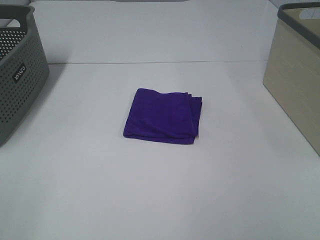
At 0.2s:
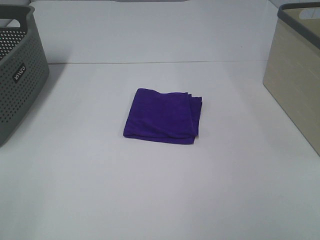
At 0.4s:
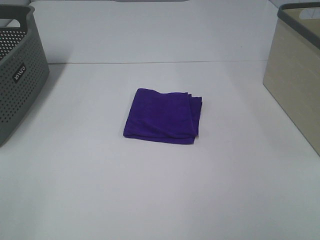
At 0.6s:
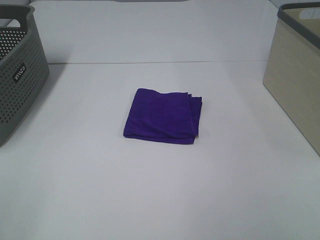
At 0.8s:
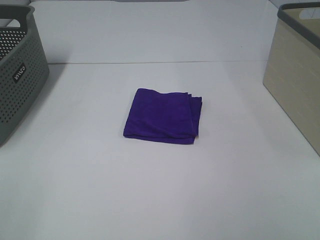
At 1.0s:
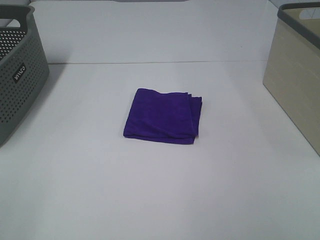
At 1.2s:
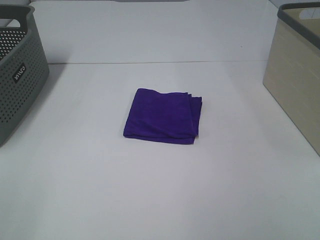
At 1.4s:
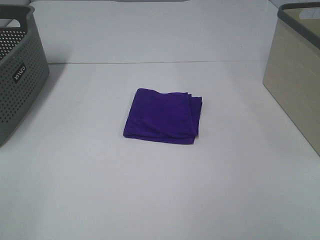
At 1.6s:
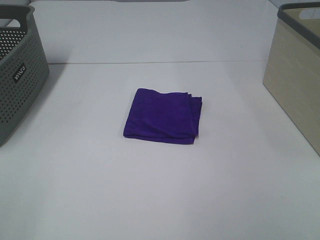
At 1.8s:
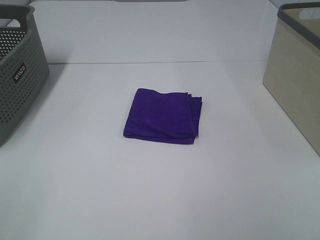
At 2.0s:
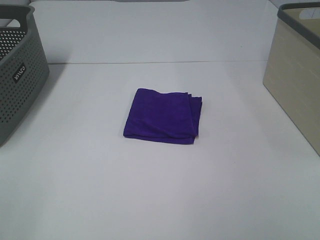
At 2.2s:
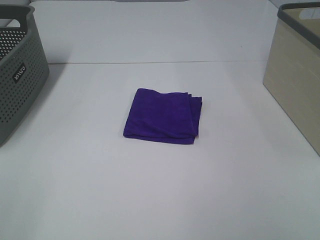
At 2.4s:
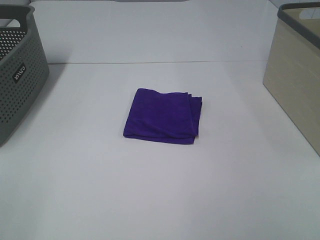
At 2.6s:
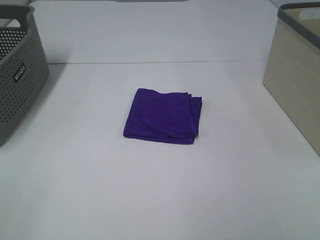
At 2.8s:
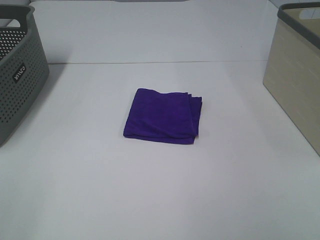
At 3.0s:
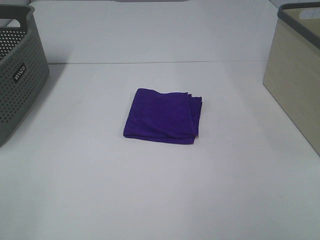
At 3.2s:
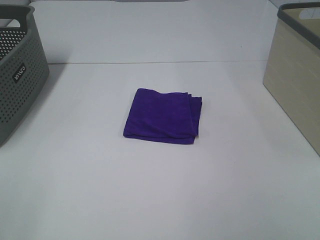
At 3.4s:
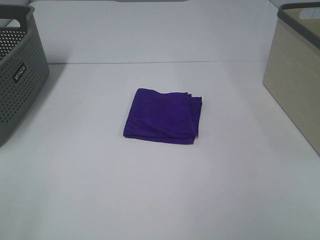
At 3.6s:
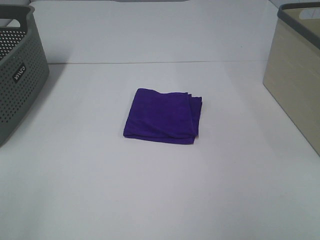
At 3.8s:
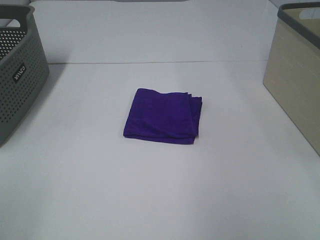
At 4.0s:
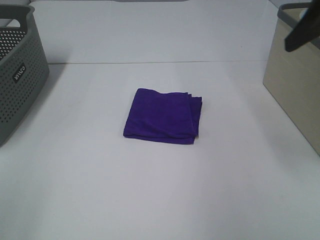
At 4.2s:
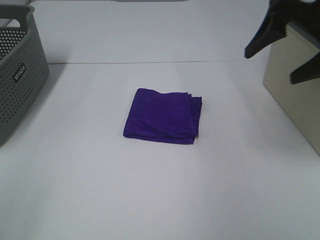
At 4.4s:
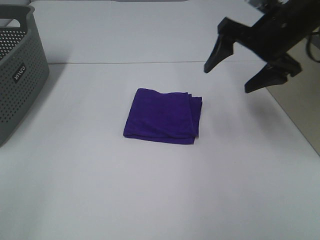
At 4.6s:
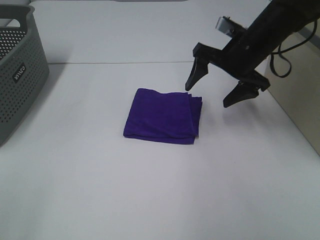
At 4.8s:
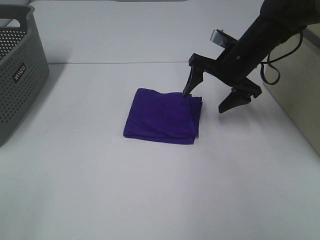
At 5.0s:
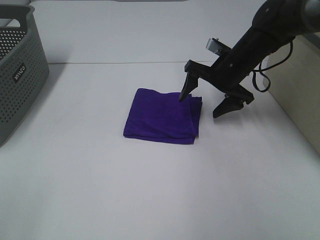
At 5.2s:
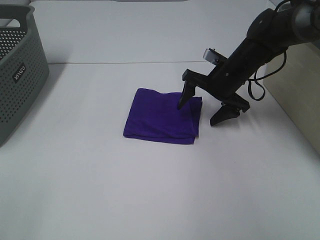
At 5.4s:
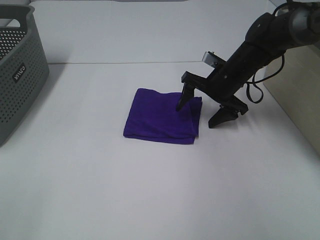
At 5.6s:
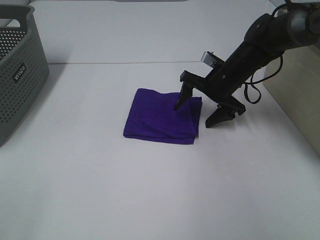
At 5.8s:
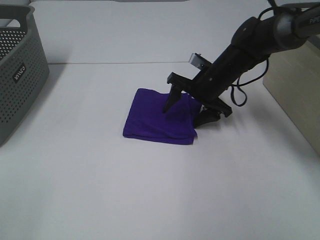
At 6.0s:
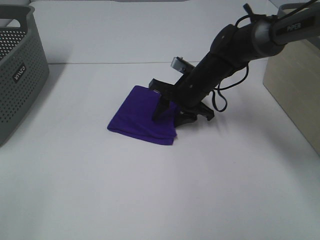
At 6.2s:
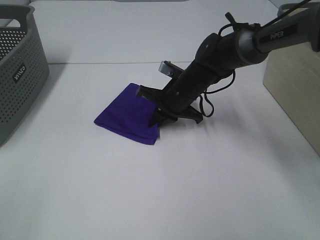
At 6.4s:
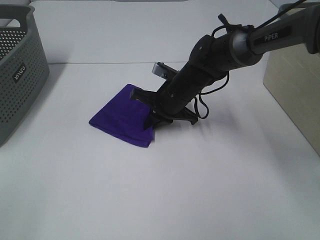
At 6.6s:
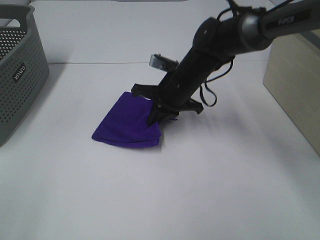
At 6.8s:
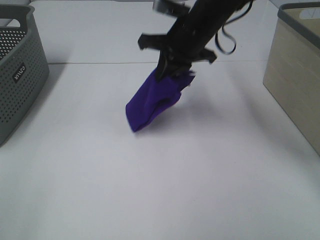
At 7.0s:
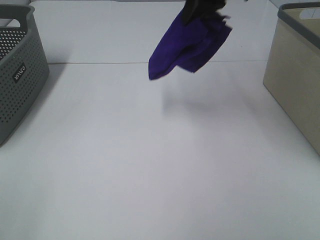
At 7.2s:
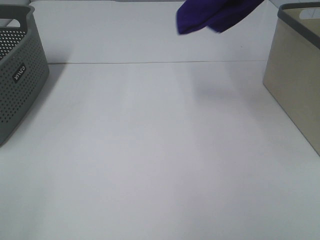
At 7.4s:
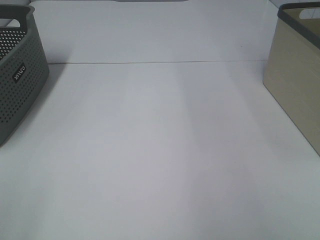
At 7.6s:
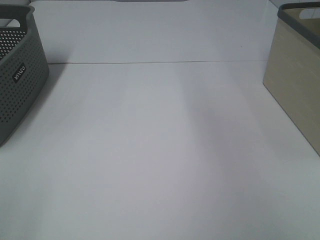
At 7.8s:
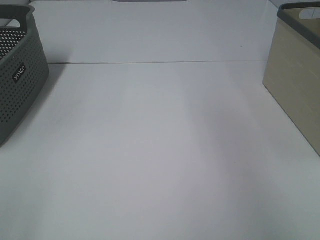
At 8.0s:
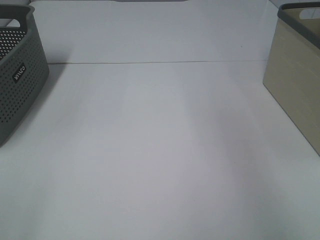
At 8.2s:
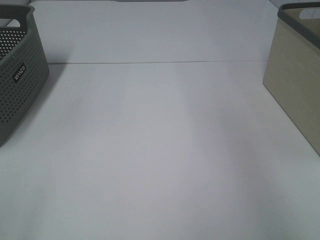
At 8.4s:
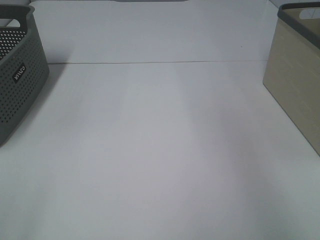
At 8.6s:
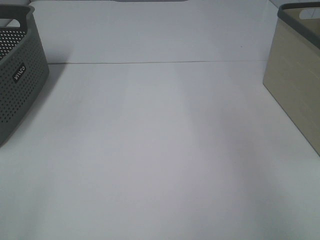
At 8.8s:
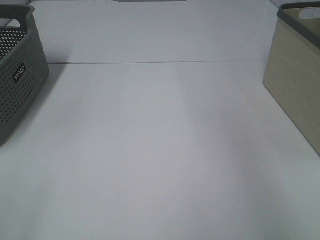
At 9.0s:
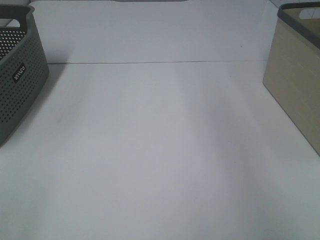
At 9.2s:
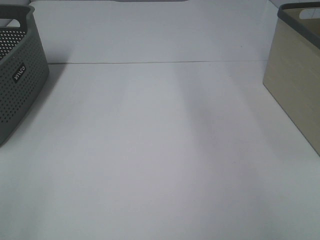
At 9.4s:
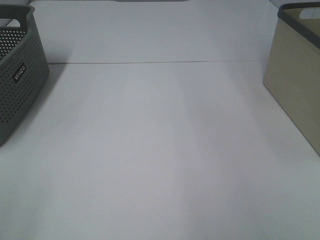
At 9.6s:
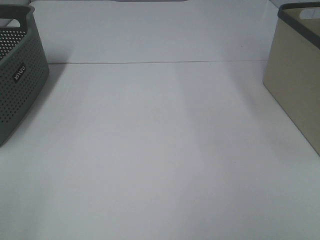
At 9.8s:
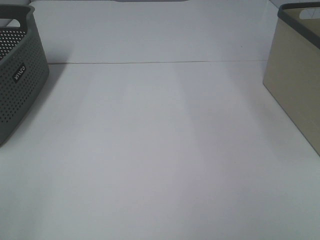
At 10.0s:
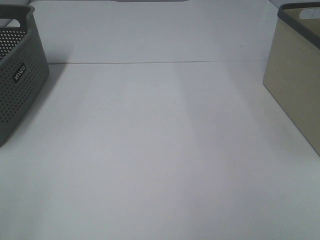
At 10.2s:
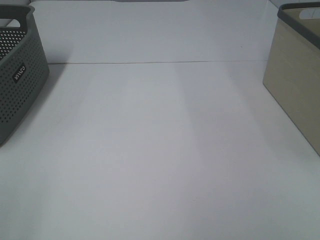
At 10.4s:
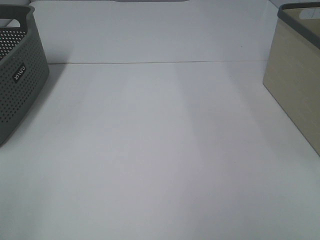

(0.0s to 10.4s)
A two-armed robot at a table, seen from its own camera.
Step, 0.0s - 6.2s: Right hand: grab the folded purple towel.
Step, 6.4s - 8.6s: Right hand: place the purple towel in right basket.
0.0s - 3.0s: Both grippers stay put.
3.0s - 4.4s: The right gripper goes roughly 35 cm forward.
4.4s - 6.0s: The right gripper shifts about 20 cm downward and to the left, and closes its fingers.
6.0s - 7.4s: The right gripper moves upward and to the right, approximately 40 cm, and closes.

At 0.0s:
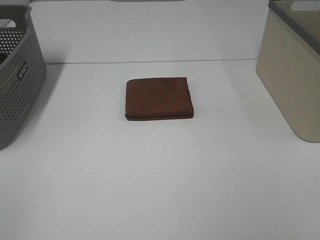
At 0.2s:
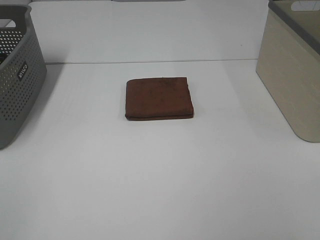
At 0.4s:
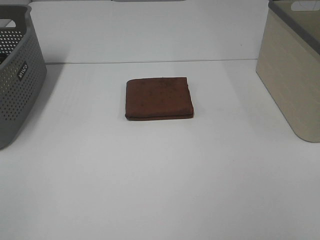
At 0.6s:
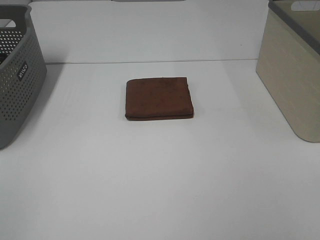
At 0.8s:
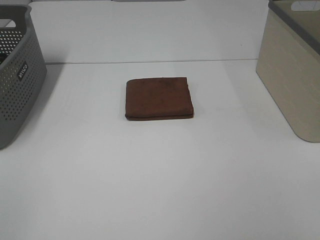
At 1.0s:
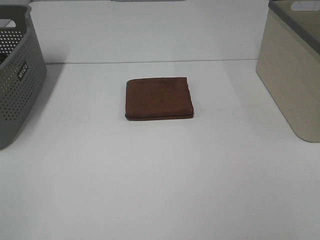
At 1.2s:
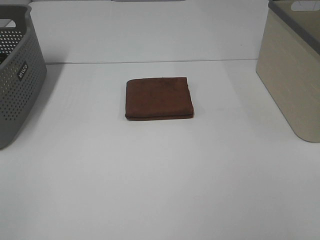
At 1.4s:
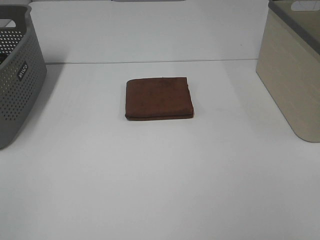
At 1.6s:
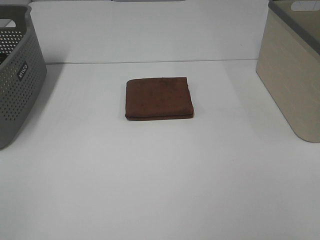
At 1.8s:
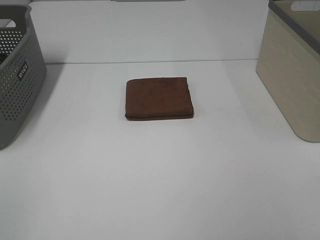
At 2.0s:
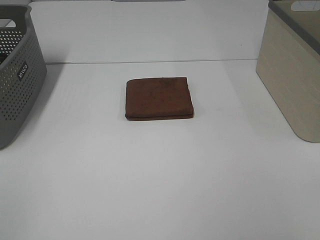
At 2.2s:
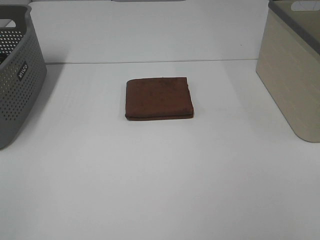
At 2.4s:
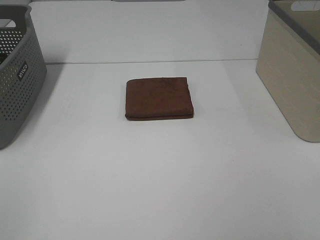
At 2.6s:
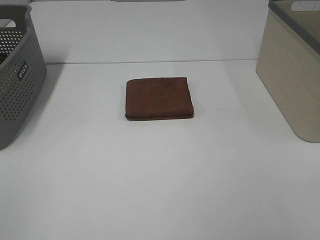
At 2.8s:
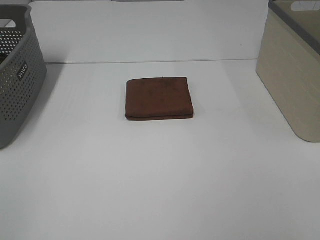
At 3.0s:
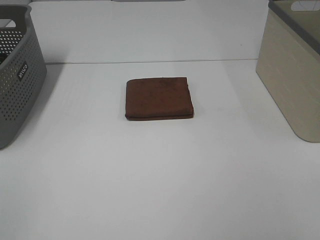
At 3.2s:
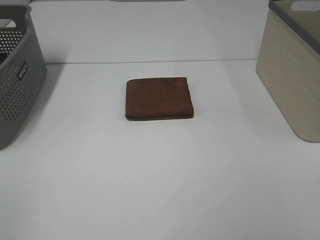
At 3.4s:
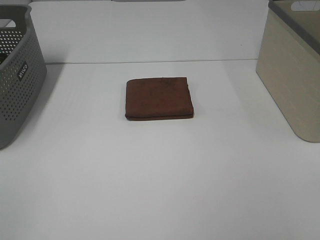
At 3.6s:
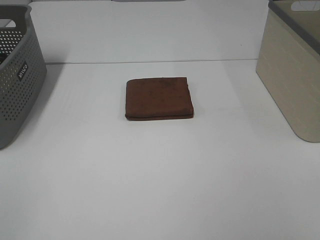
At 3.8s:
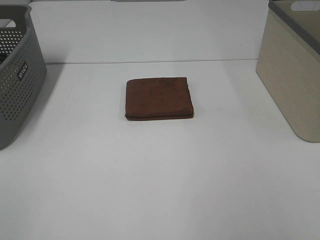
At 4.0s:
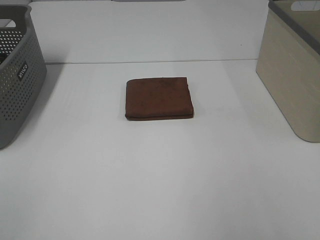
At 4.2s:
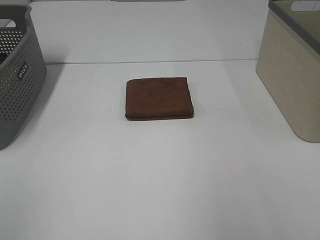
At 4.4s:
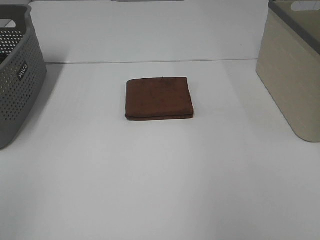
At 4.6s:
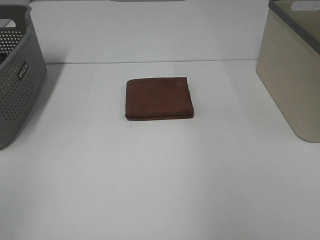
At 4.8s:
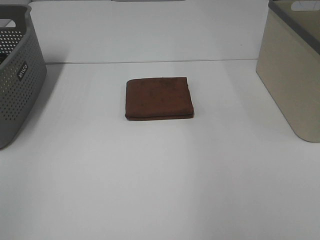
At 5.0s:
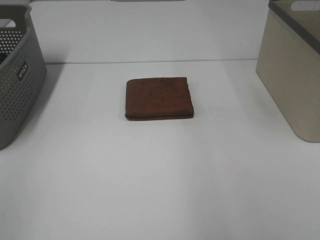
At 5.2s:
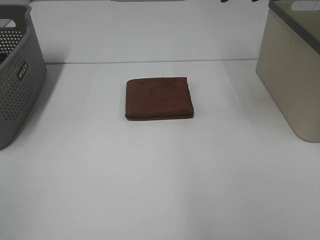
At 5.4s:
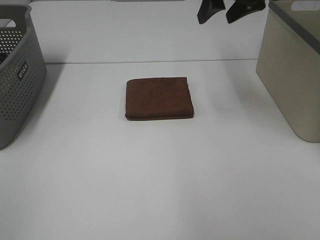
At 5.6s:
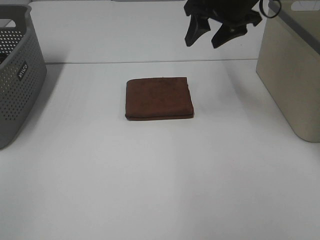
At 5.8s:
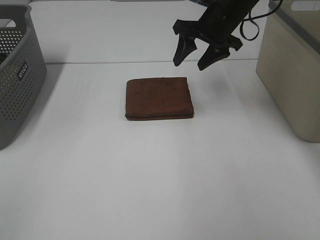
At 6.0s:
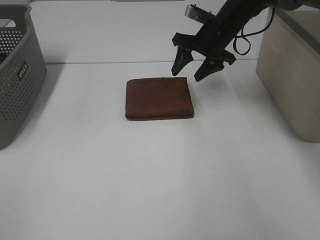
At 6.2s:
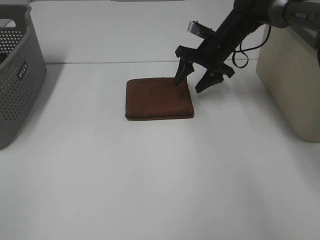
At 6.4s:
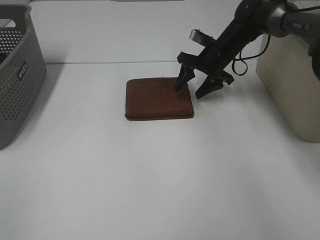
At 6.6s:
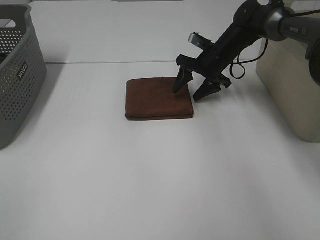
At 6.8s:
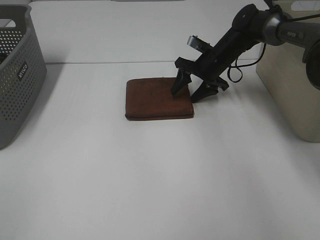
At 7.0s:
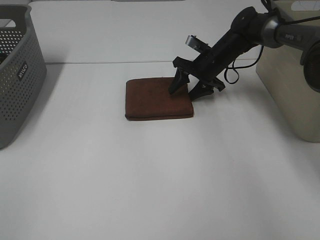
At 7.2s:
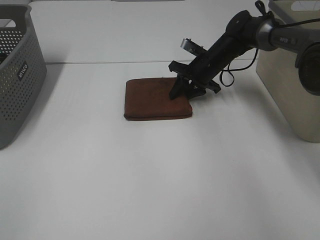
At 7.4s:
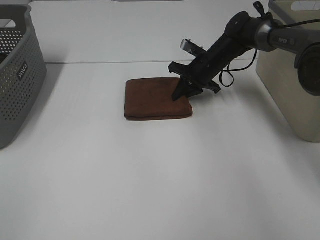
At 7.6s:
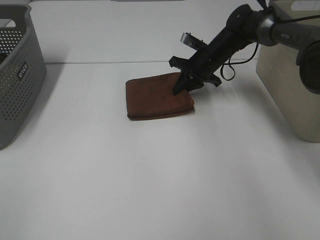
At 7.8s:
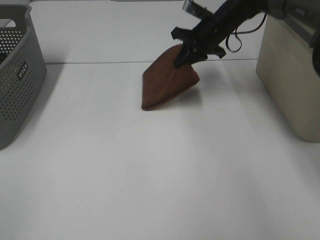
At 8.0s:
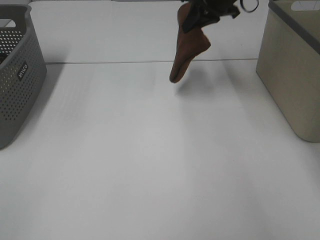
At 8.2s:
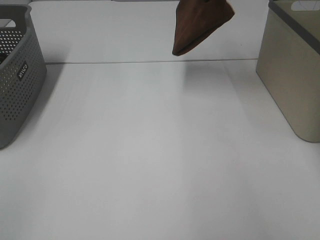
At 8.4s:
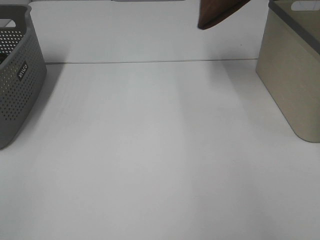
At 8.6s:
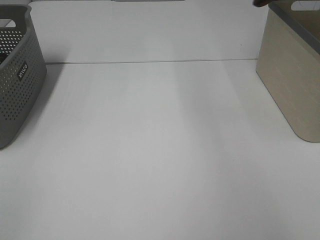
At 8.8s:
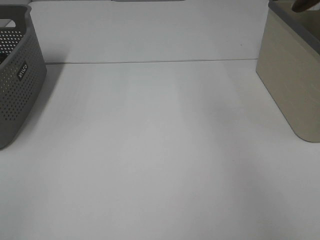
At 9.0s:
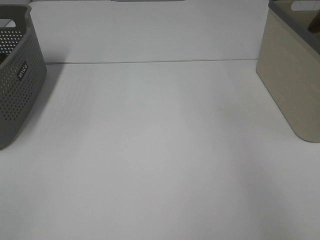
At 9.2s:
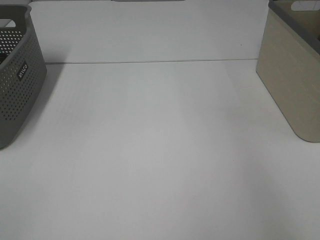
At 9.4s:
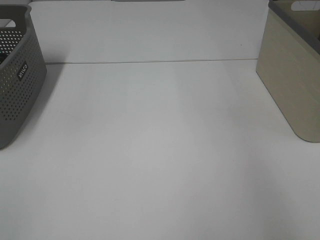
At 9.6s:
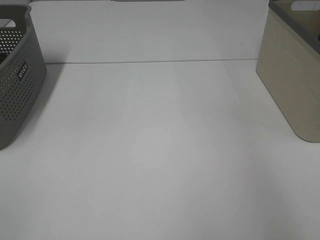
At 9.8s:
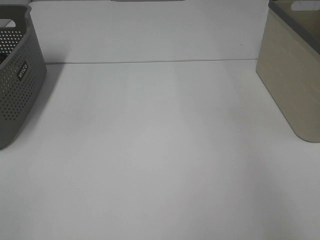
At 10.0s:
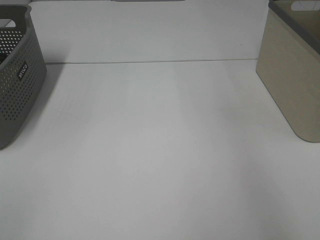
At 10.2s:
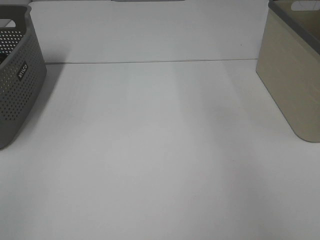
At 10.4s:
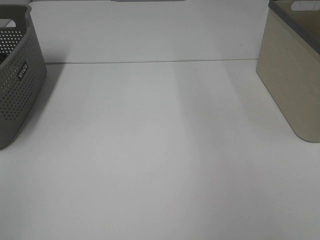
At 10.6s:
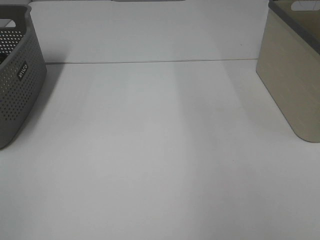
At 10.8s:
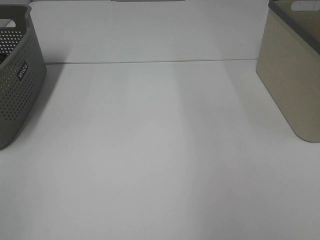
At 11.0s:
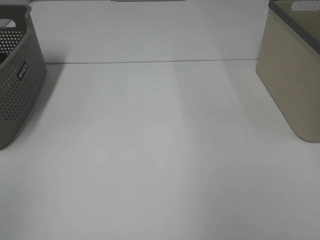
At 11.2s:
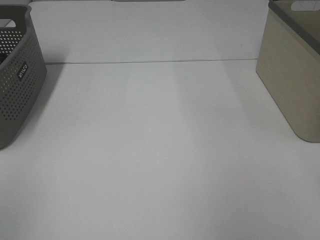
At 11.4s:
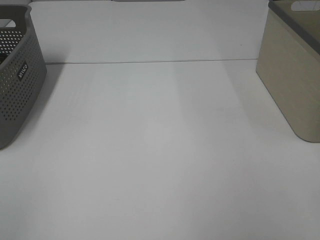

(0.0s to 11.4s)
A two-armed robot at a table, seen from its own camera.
Step, 0.0s - 7.4s: Right hand: grab the folded brown towel.
Step, 7.6s - 9.8s: Right hand: place the brown towel in right basket.
0.0s - 2.8s: Neither gripper changes place.
4.2s - 5.6s: The right gripper heads forward and to the left, covering approximately 35 cm.
5.6s - 7.2s: The right gripper goes about 20 cm downward and forward, and closes up.
7.2s - 8.6s: The right gripper heads upward and to the right, covering approximately 40 cm, and closes its fingers.

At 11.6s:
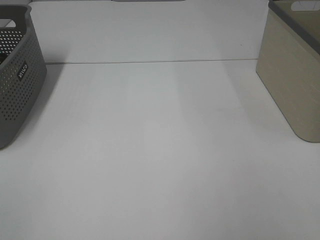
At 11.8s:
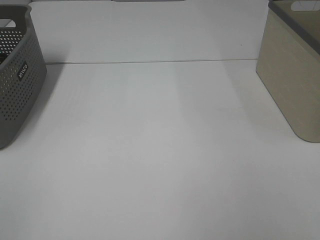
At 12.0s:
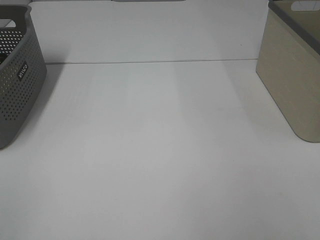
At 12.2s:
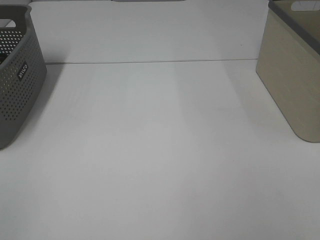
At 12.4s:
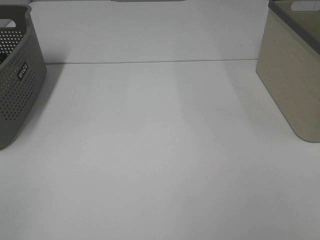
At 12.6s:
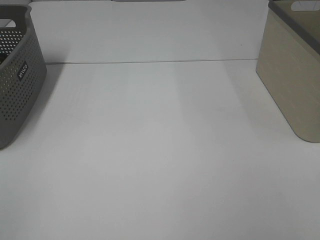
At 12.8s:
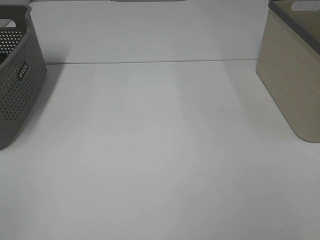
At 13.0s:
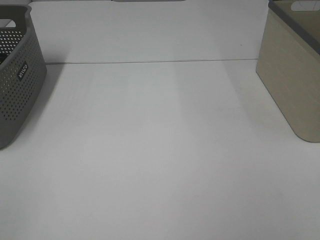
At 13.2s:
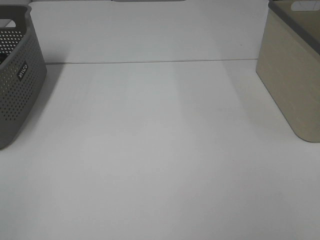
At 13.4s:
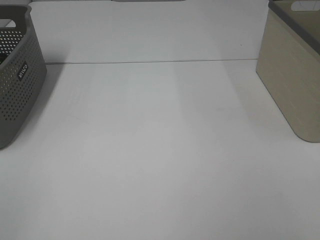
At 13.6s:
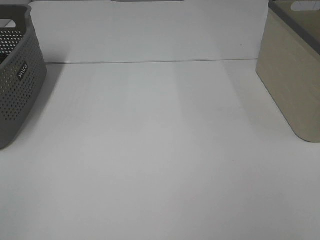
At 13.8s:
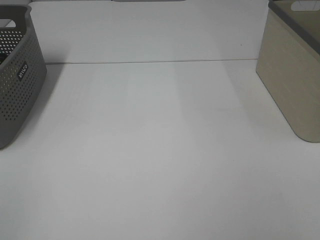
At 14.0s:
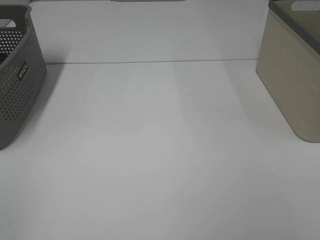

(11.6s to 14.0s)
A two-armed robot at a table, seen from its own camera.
12.8s - 14.0s: Neither gripper changes place.
